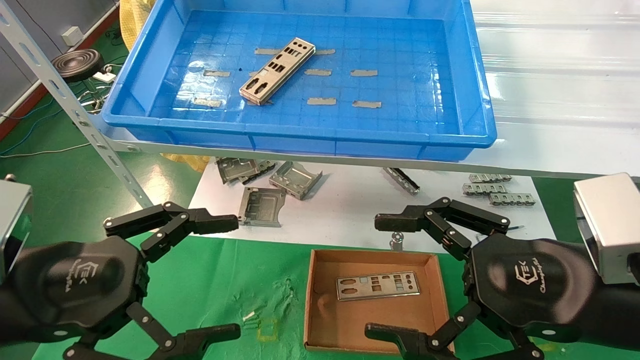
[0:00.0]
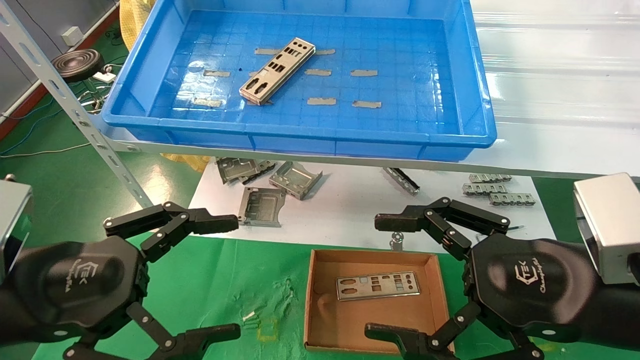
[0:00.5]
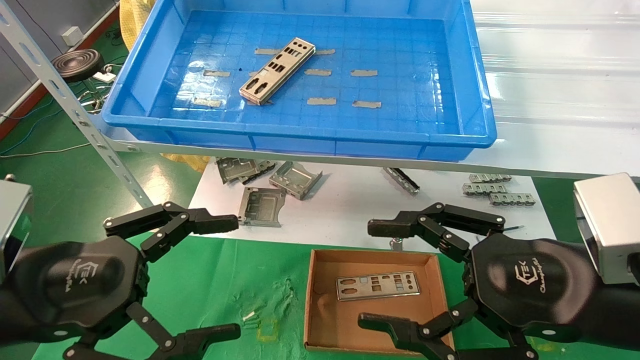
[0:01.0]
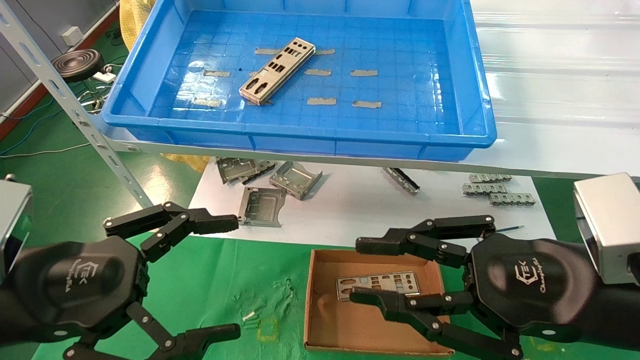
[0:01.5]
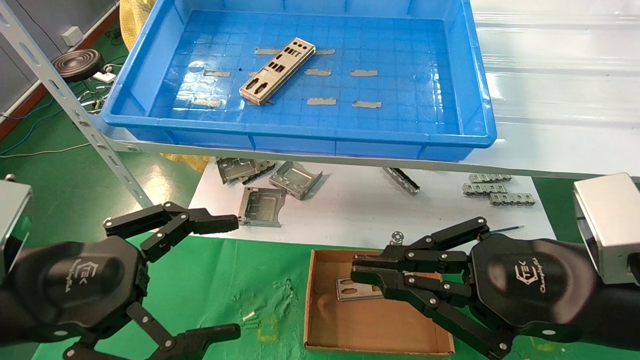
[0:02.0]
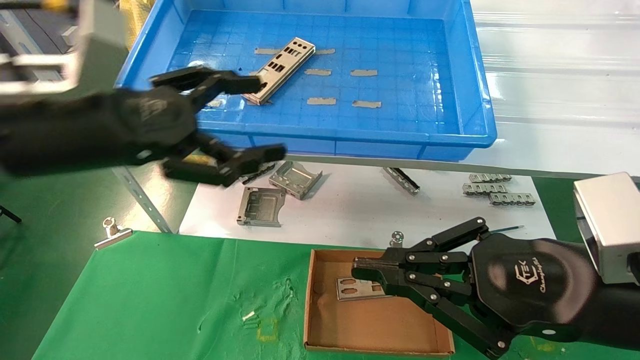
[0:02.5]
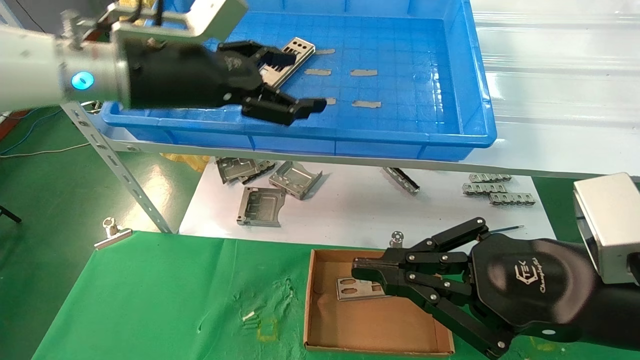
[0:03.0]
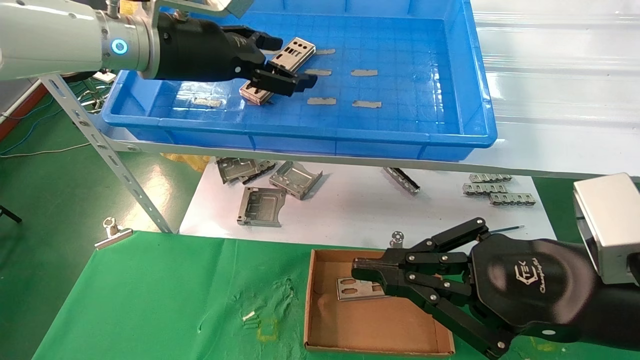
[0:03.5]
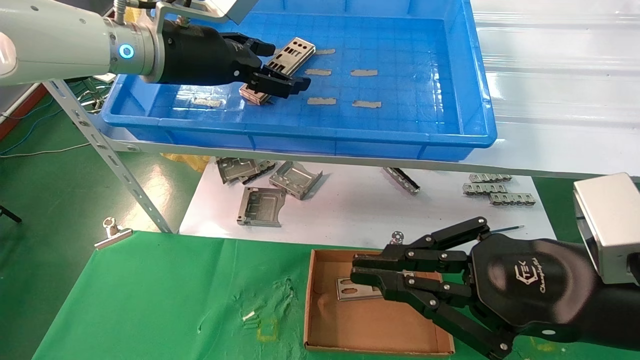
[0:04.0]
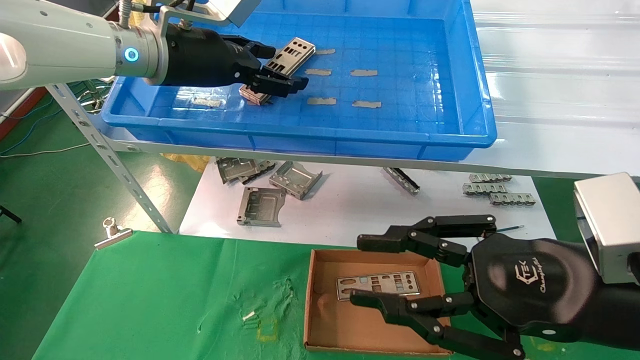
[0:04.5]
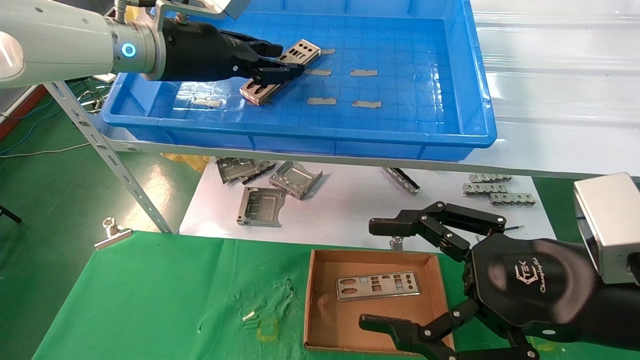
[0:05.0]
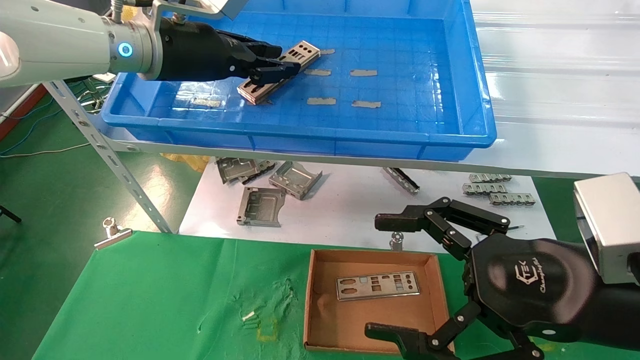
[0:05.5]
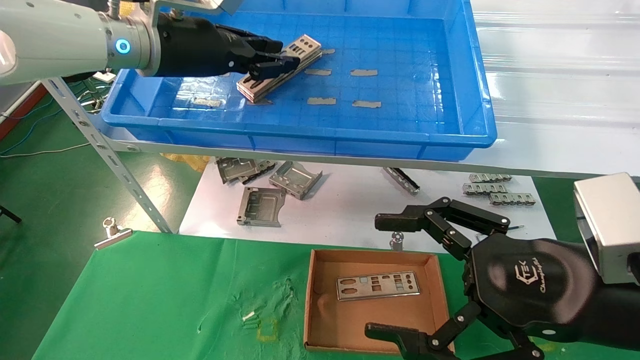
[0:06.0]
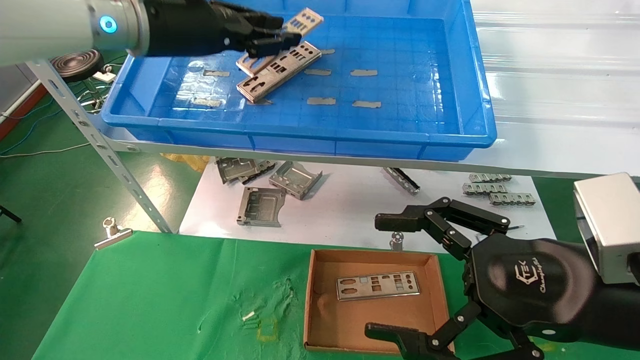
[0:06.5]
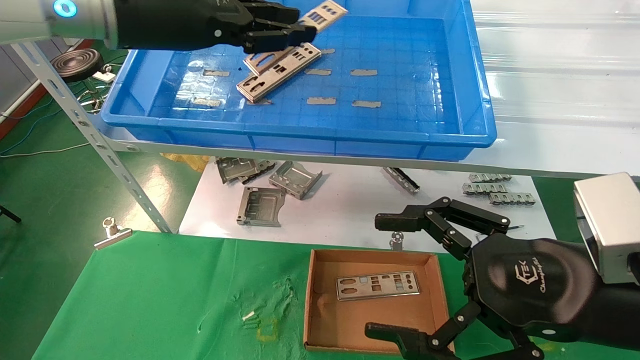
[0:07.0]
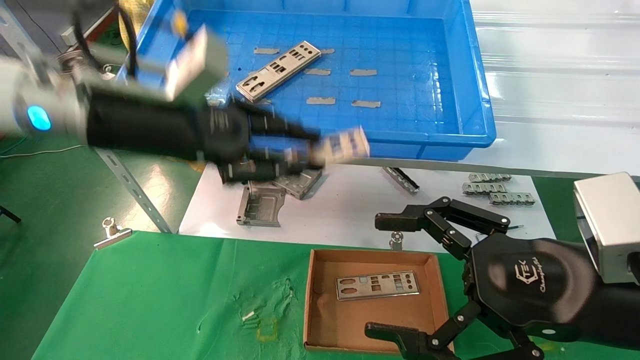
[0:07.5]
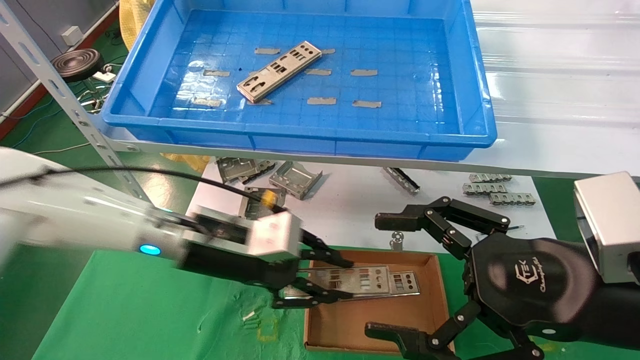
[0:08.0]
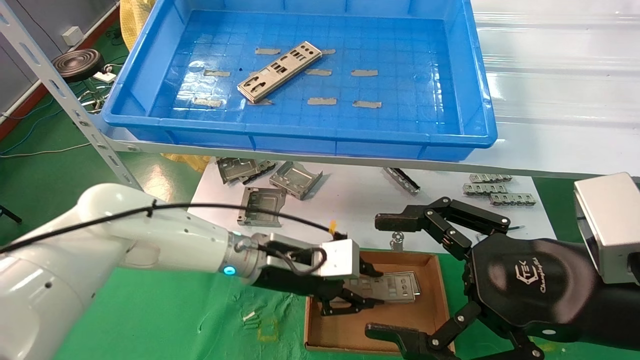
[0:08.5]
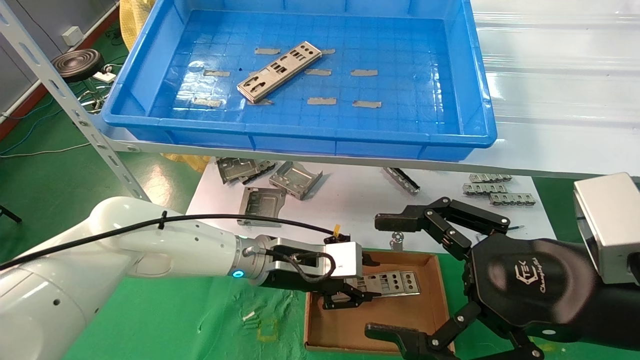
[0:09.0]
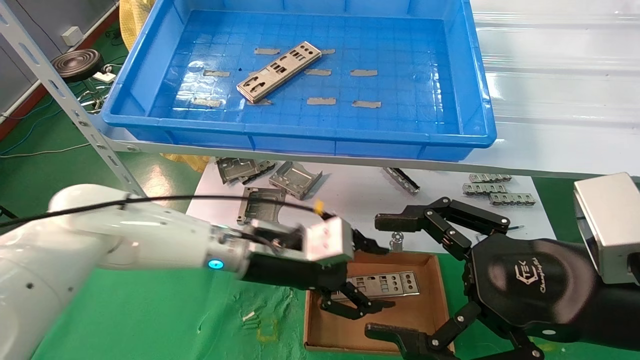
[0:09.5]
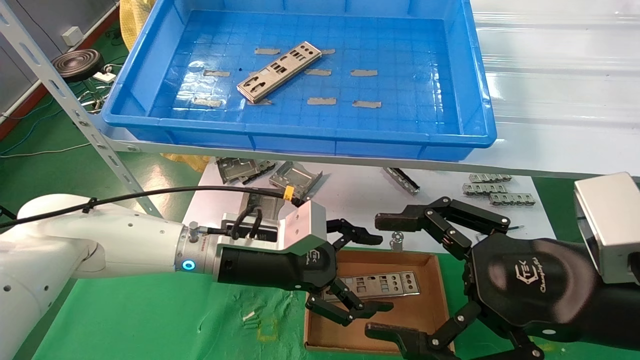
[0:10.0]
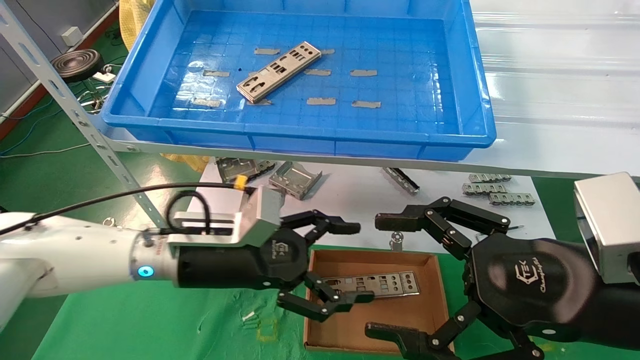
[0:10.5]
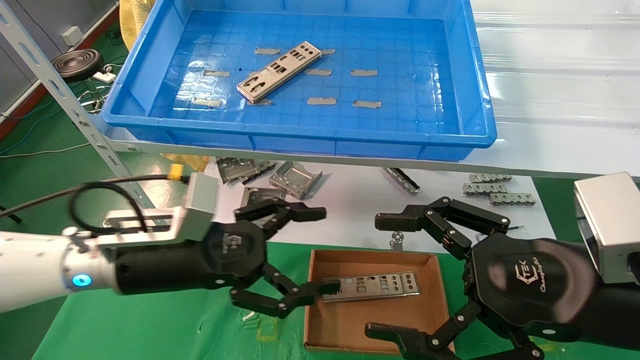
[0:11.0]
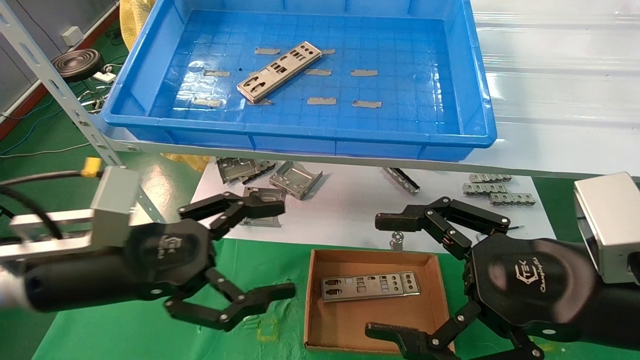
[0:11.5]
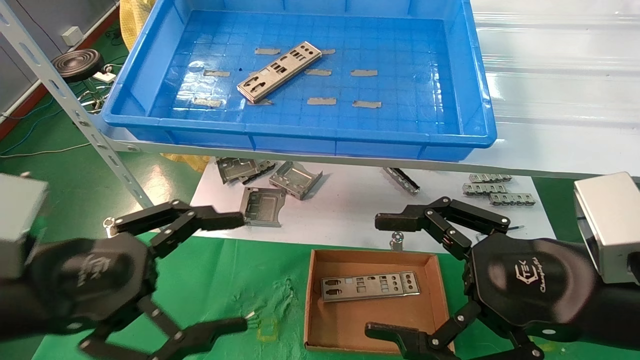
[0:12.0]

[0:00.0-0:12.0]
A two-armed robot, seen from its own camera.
Task of the whole recording: pick up the parts on the tray and put them in the cardboard box.
Step, 0:02.5 to 0:05.0: Pick up the IO bracket from the container box.
Step, 0:05.5 to 0:09.0: Place the IO bracket into the ingredient slot.
0:00.0 to 0:02.0: The right gripper closes up.
0:02.0 to 0:04.0: The left gripper shifts some 30 cm forward, upward and to the right.
0:04.0 to 0:06.0: The right gripper opens. Meanwhile the left gripper closes up.
0:06.0 to 0:08.0: The left gripper heads downward, covering roughly 20 cm.
0:08.0 to 0:10.0: The left gripper opens.
0:10.0 to 0:12.0: The left gripper goes some 25 cm to the left and backward.

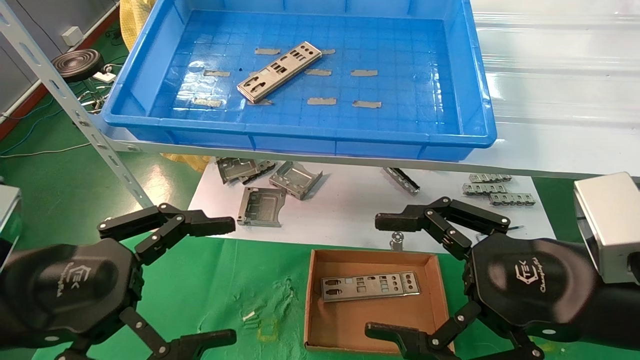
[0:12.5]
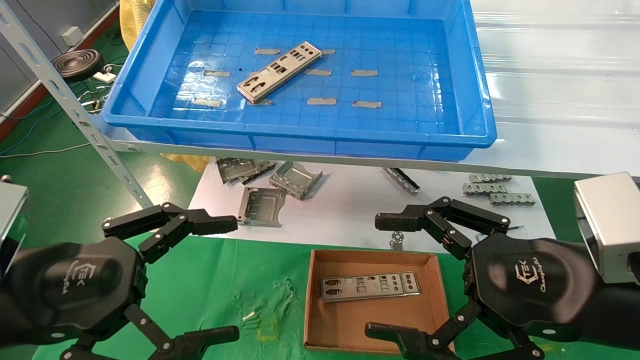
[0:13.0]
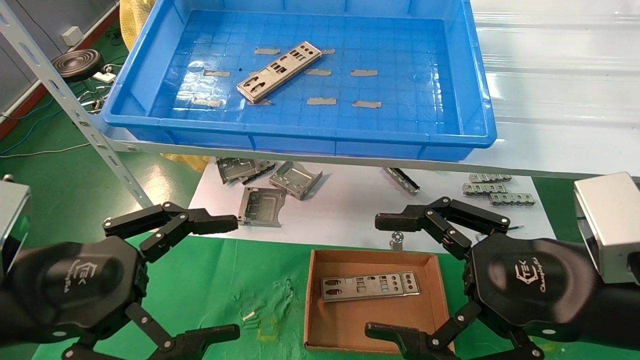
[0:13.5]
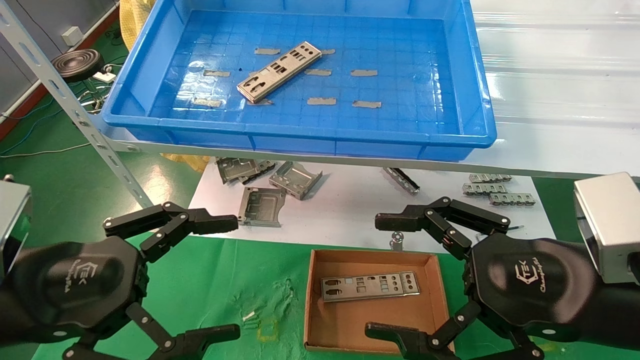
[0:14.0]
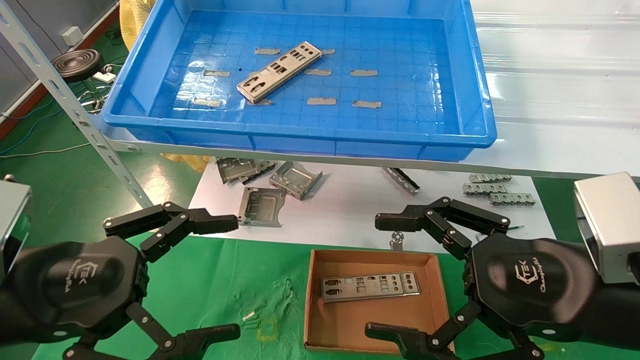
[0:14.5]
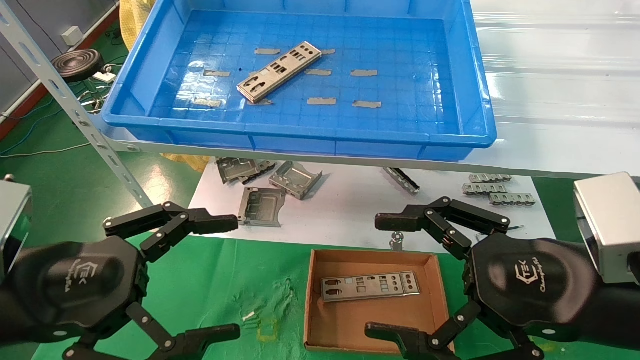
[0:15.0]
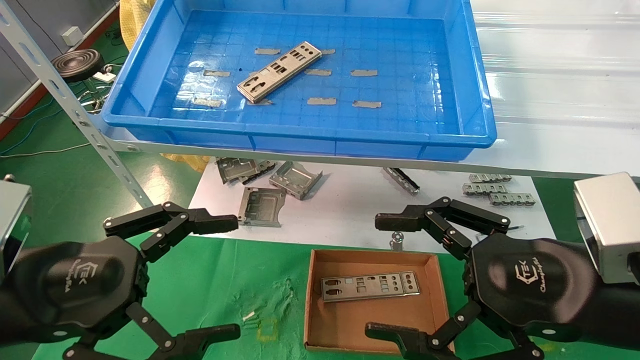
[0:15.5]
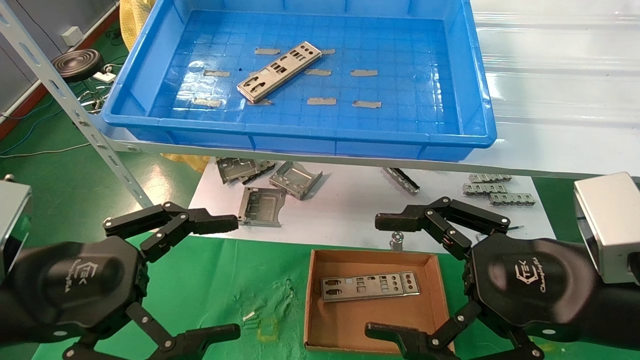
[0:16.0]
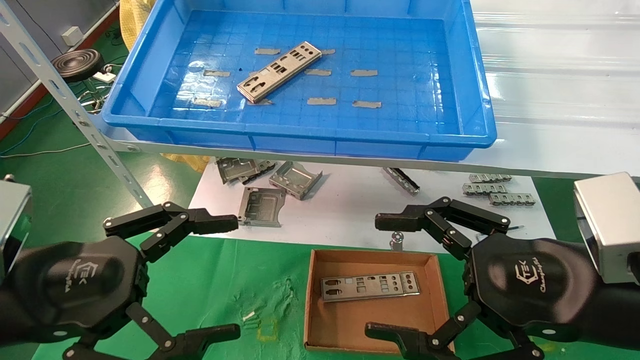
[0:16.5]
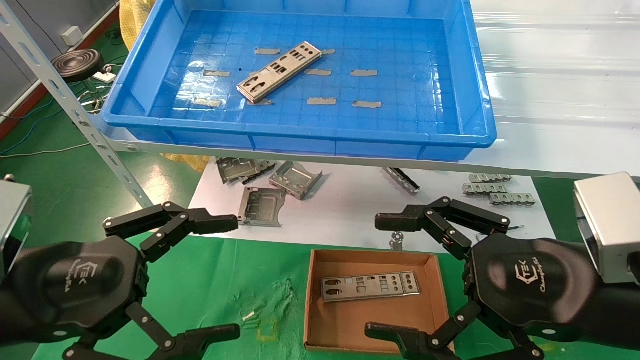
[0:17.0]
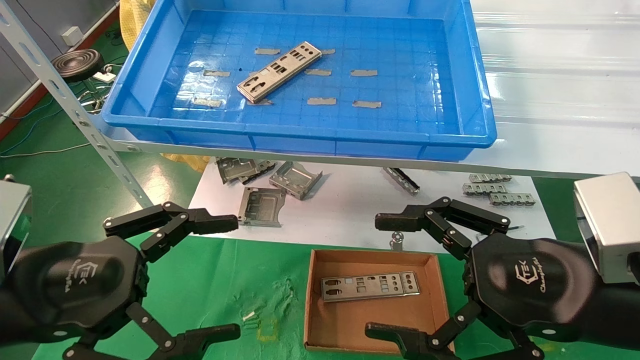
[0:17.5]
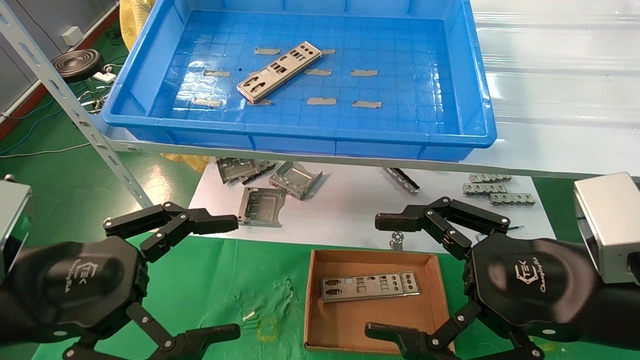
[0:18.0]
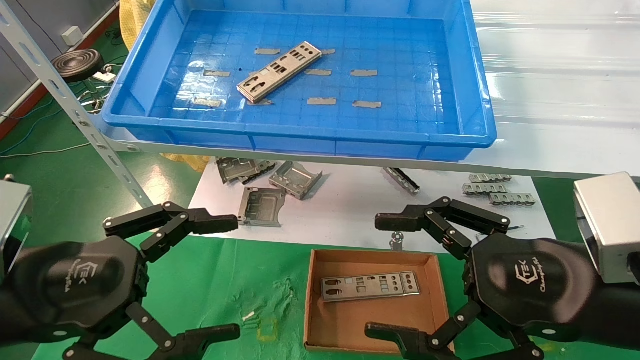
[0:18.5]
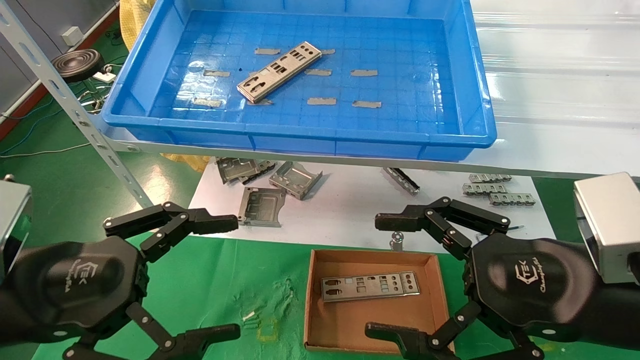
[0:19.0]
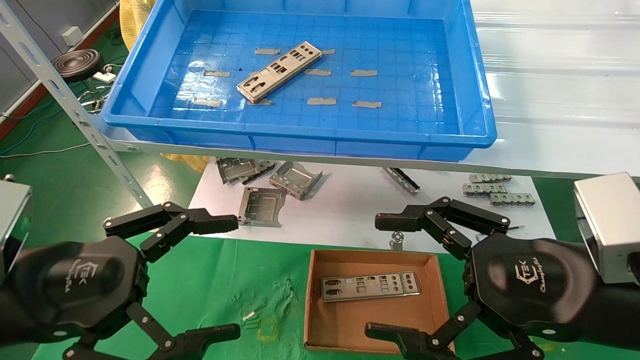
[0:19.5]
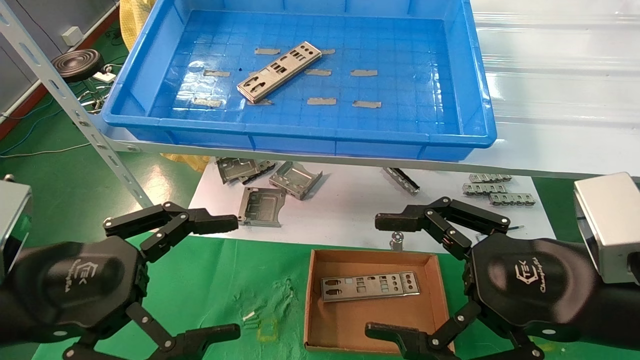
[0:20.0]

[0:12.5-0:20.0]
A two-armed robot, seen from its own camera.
Task of the whole recording: pick up the parts on the tray and put them in the cardboard box.
0:12.5 to 0:20.0: Both grippers stay about where they are.
